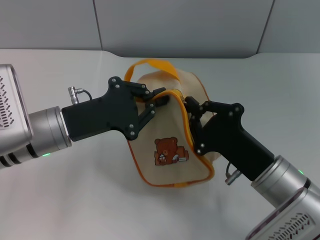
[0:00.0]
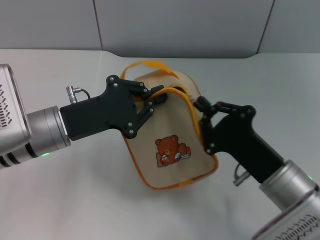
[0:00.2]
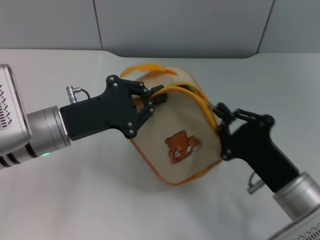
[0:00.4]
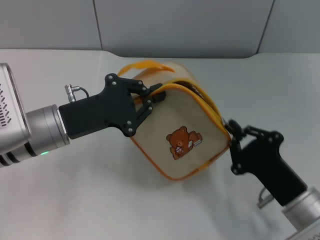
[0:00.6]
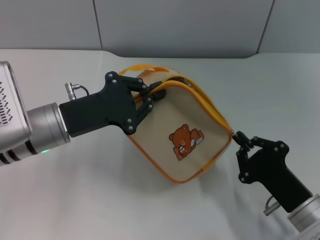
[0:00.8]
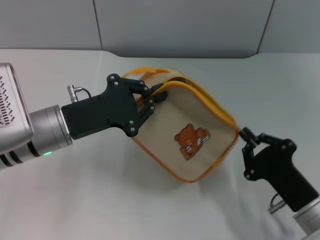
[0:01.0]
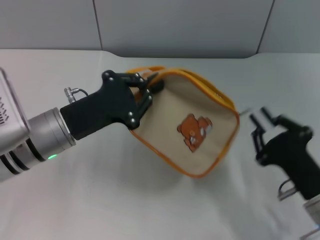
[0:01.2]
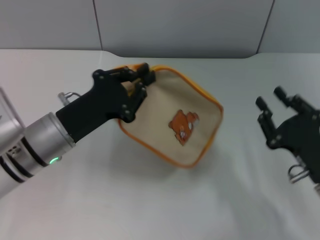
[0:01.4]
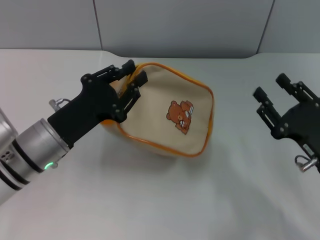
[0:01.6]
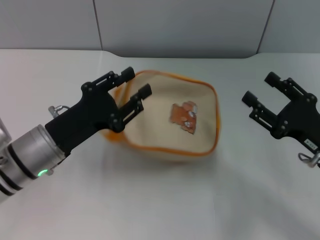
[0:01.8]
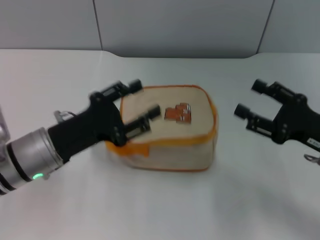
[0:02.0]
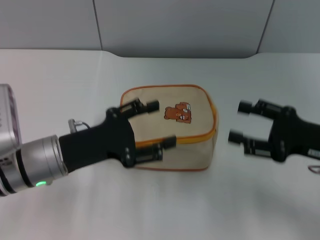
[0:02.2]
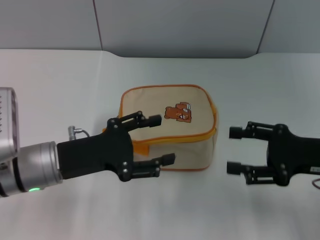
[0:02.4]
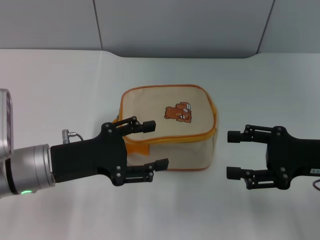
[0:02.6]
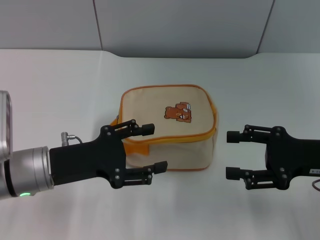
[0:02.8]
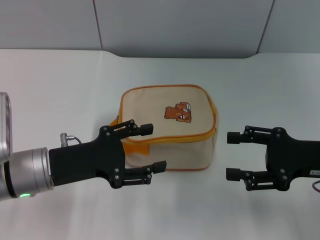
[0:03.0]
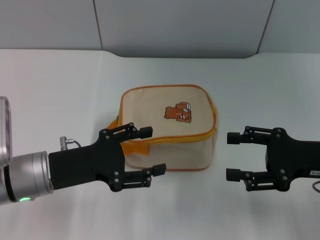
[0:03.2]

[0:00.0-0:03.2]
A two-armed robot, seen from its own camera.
Step, 0:01.4 to 0:01.8: Place the bag on the table with left gripper.
0:00.0 to 0:01.6: The right gripper shifts some 10 cm to the right, and opens its fingers.
0:01.6 to 0:03.2: The left gripper opens. The right gripper shifts approximately 5 cm upward, and opens its fingers.

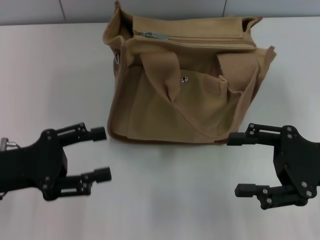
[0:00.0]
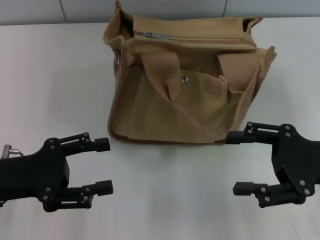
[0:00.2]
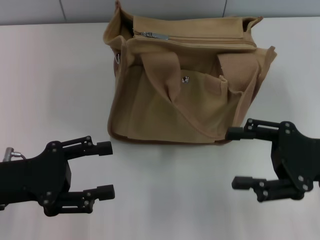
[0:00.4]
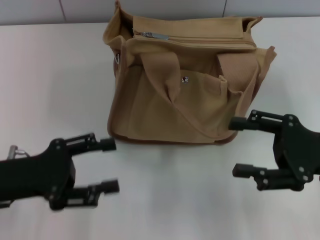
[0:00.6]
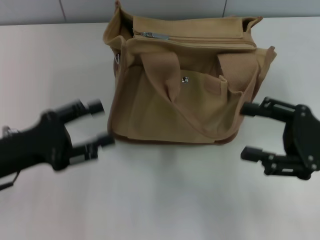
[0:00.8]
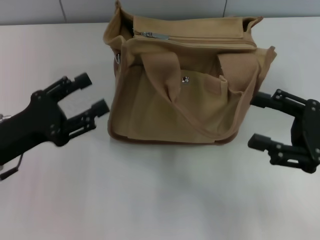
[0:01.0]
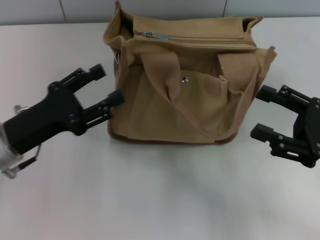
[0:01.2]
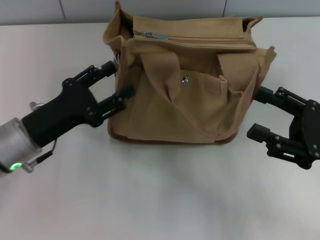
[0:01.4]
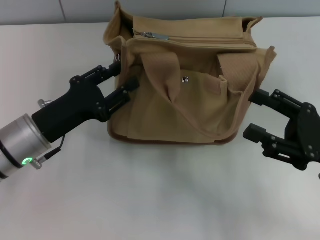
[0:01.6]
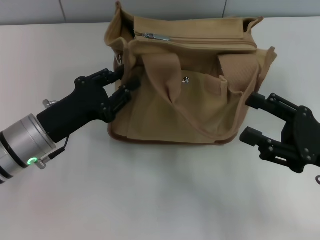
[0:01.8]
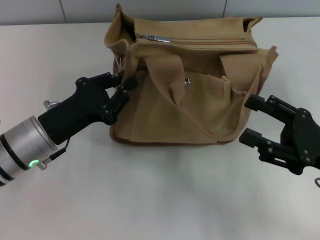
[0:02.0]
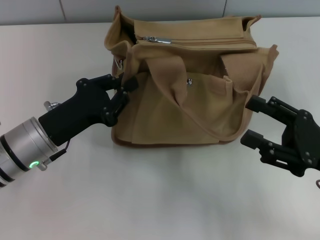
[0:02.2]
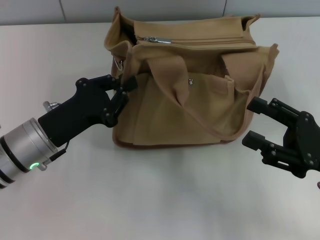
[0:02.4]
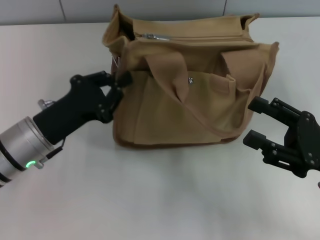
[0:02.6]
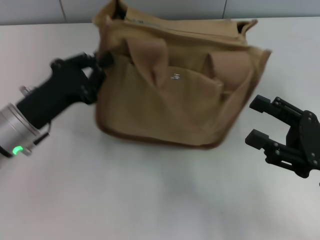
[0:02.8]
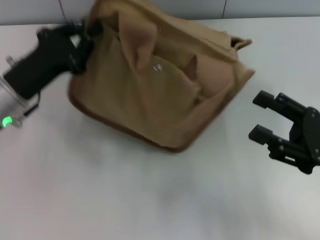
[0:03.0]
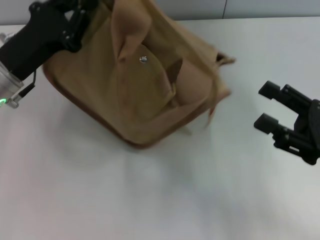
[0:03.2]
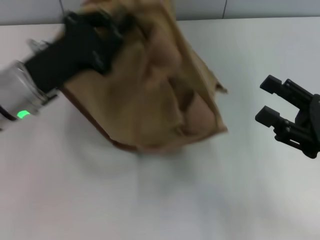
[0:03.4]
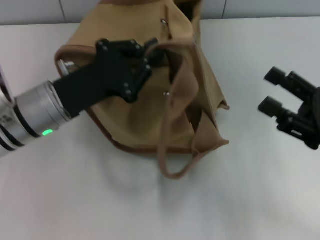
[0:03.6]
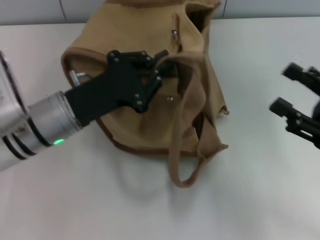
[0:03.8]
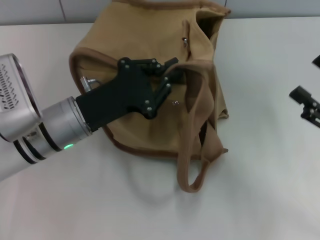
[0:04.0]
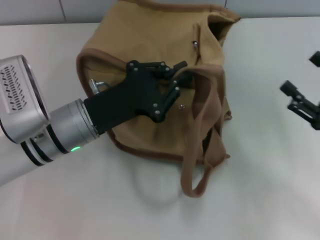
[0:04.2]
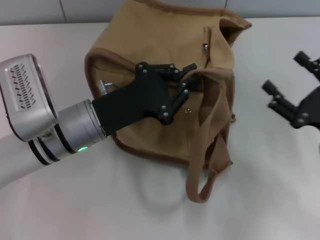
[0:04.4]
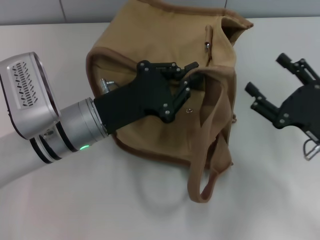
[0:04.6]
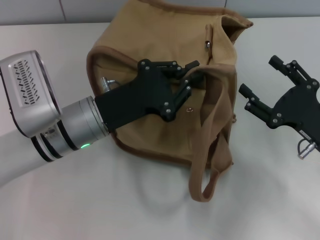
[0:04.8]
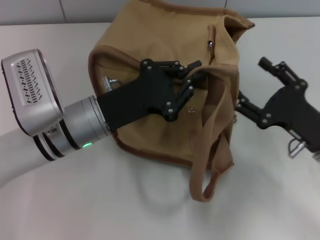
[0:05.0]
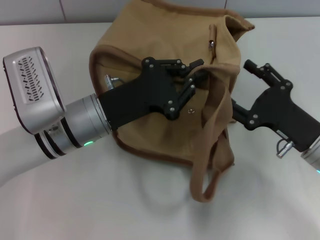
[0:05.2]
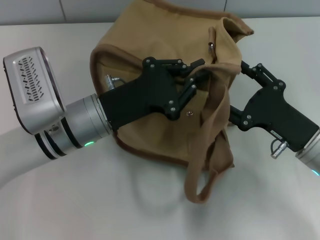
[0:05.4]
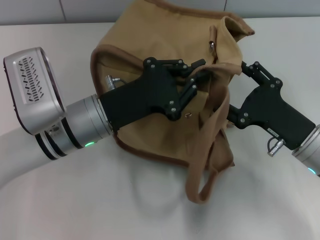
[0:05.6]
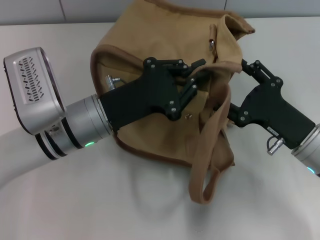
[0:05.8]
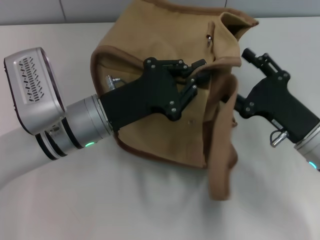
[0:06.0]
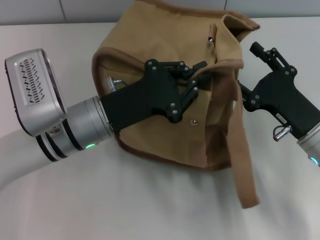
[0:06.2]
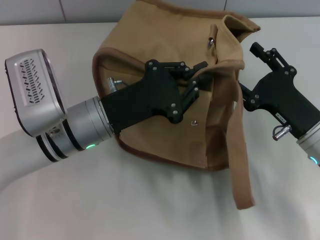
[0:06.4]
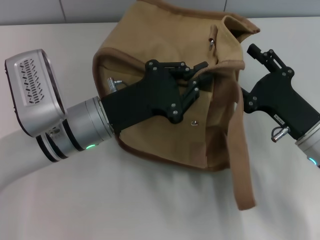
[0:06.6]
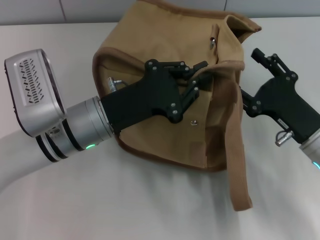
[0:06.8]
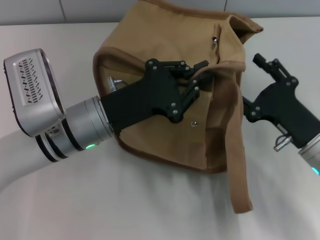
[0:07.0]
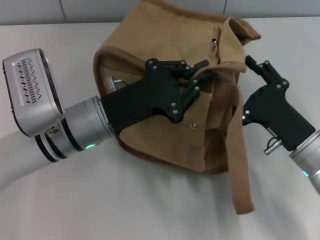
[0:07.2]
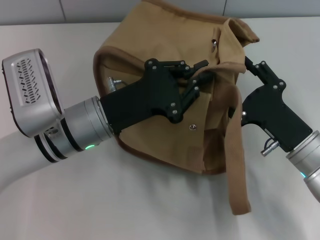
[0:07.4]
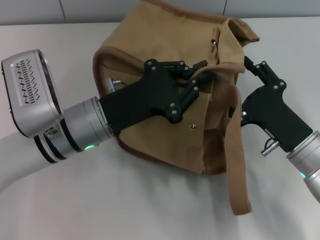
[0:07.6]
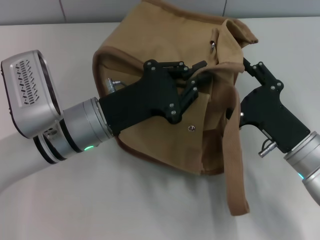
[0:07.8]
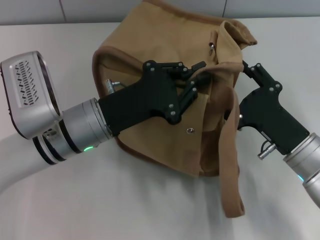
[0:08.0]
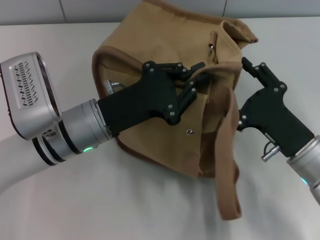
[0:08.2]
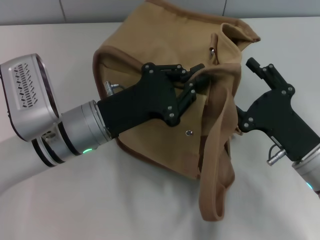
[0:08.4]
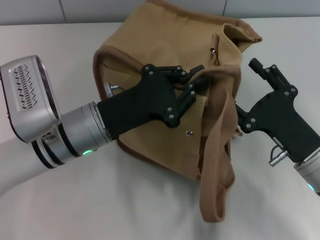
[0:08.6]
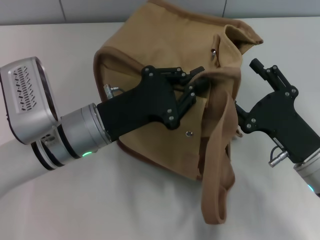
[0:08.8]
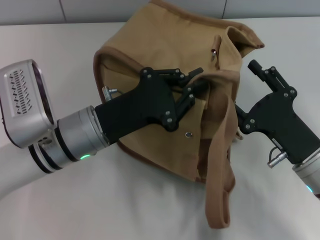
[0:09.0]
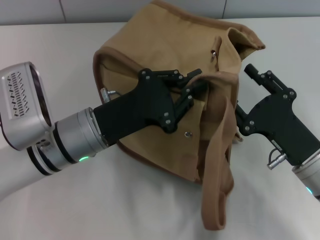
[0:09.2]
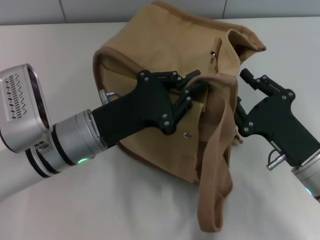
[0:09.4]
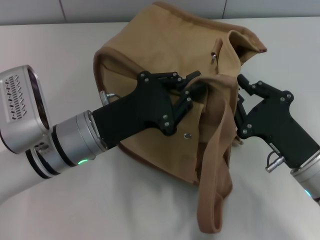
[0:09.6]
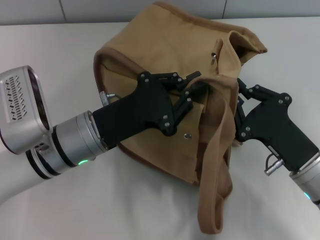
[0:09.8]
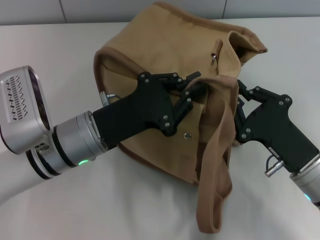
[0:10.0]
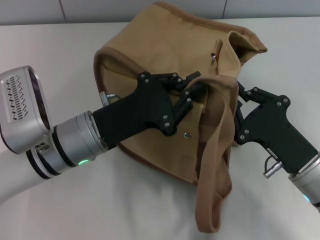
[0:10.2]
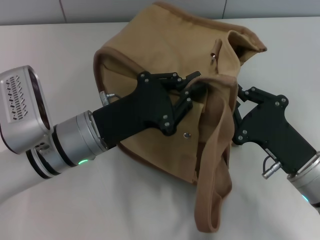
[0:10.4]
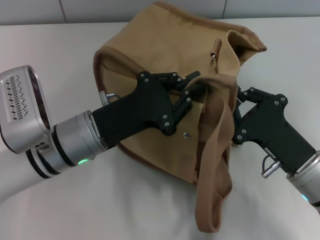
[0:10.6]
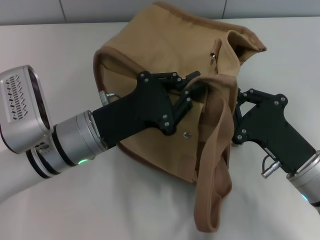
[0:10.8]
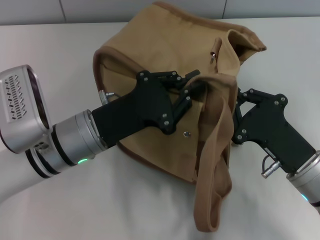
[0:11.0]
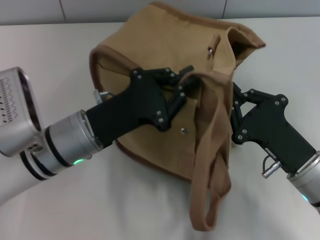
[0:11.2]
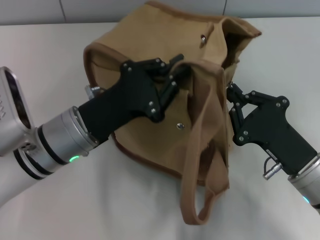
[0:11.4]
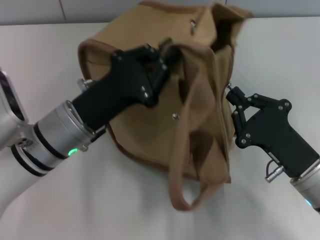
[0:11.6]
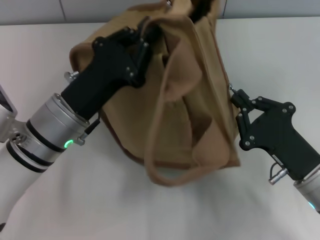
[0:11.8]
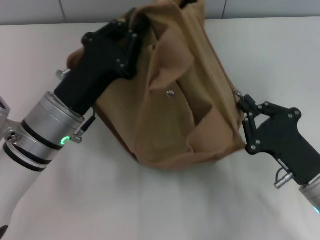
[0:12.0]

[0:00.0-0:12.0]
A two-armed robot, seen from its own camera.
0:00.0 to 0:01.6: The left gripper is displaced to the right by roughly 5 cm.
0:01.6 to 0:03.0: The left gripper moves some 5 cm, and closes up.
0:03.0 to 0:04.4: The left gripper is displaced to the right by about 10 cm.
0:04.4 to 0:06.0: The right gripper travels to the left by roughly 5 cm.
0:06.0 to 0:07.6: The grippers stay close to where they were, moving slightly.
0:09.0 to 0:10.4: The right gripper closes its fingers.

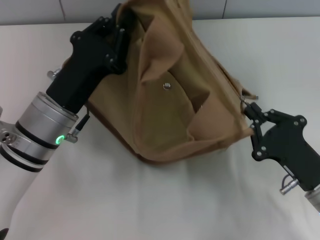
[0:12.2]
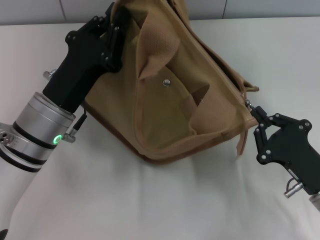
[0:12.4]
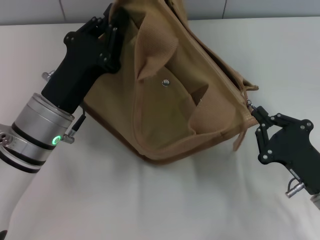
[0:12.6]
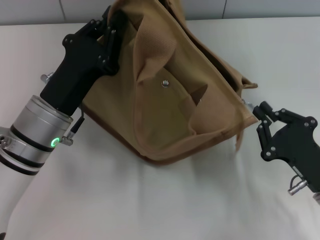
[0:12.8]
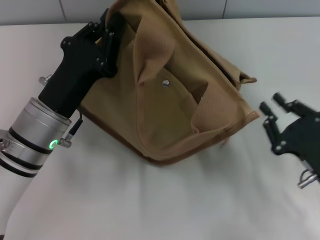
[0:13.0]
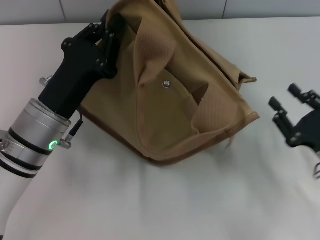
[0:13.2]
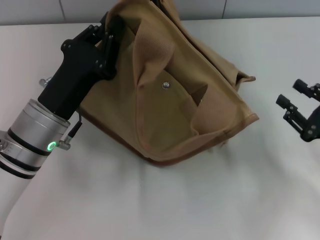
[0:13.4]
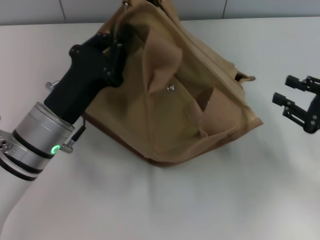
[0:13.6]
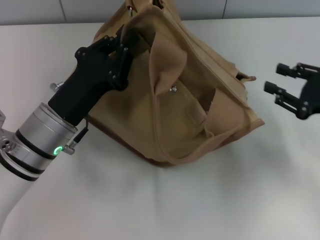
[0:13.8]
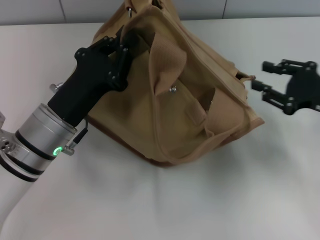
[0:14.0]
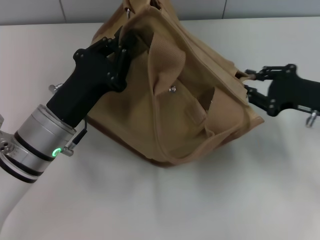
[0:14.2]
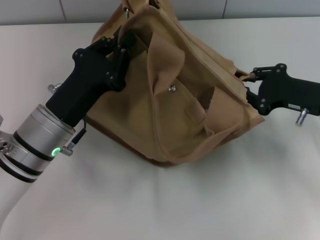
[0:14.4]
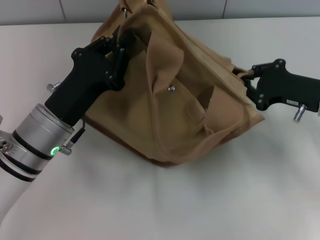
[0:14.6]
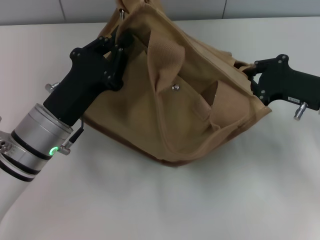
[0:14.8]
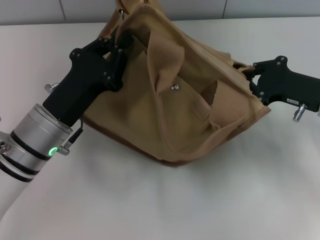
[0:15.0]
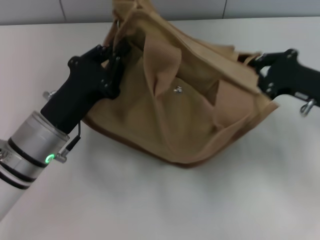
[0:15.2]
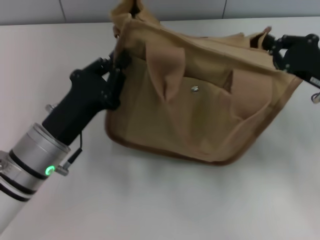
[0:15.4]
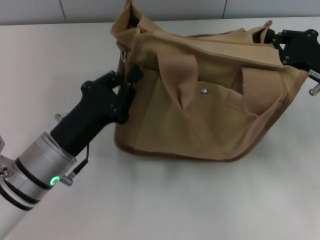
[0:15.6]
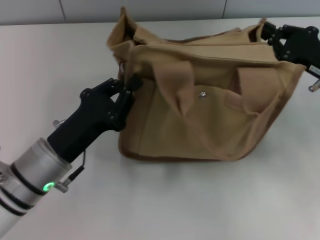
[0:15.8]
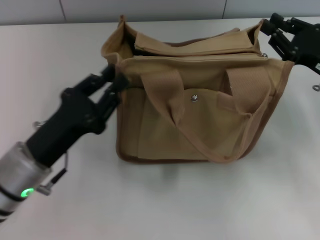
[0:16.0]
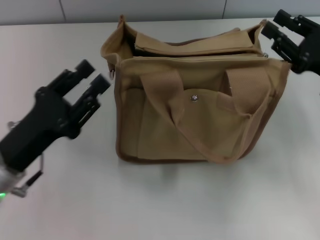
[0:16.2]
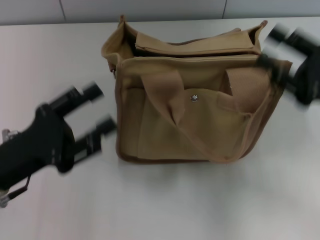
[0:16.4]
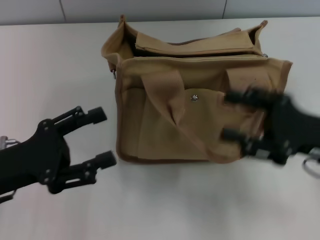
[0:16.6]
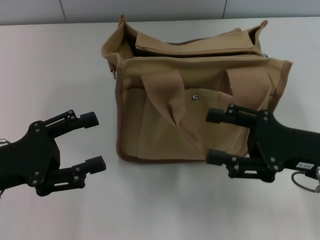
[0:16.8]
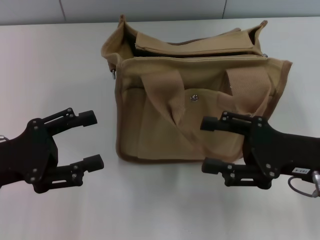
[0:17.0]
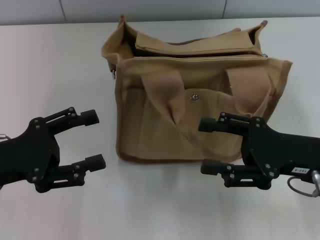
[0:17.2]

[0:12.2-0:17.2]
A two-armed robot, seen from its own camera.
Step, 0:13.2 to 0:16.2: Grab the bag with your left hand.
0:12.2 to 0:13.8: The right gripper travels forward, to the right and upward by about 15 cm, and opens its fingers.
0:13.8 to 0:15.6: The right gripper ends up some 5 cm from where it was, and closes up.
0:15.6 to 0:17.2: The right gripper travels backward and to the left by approximately 10 cm, and opens its fingers; the left gripper shifts about 10 cm to the left, and opens up.
